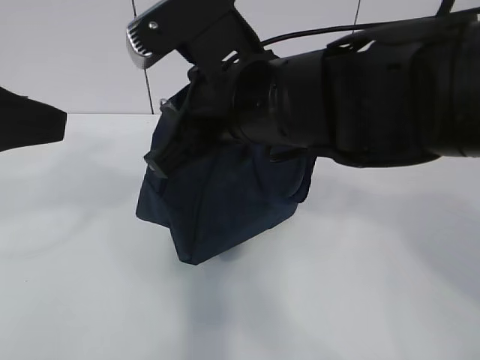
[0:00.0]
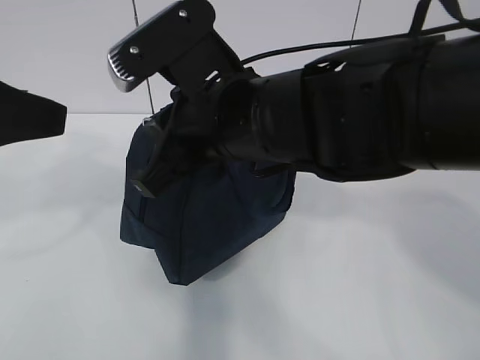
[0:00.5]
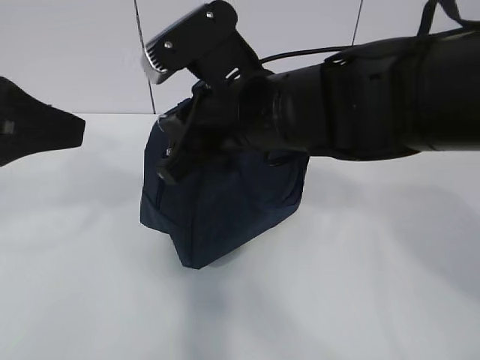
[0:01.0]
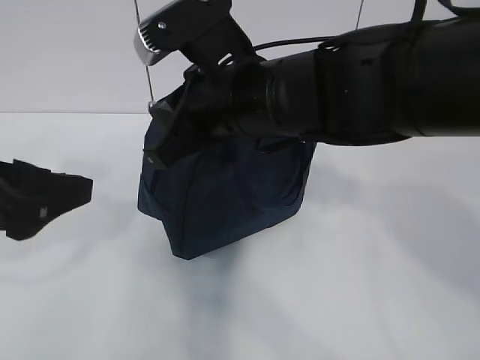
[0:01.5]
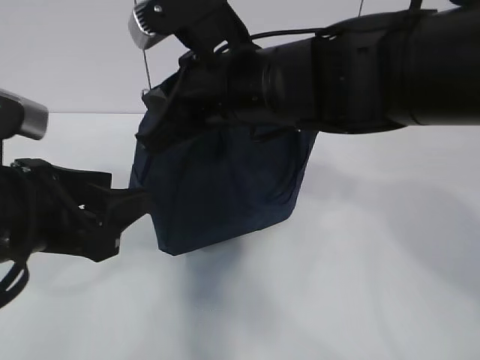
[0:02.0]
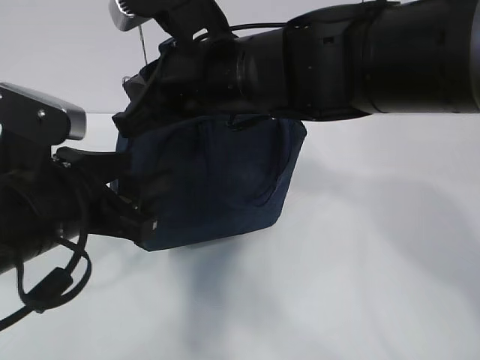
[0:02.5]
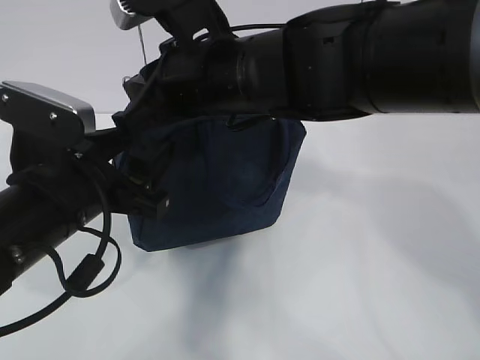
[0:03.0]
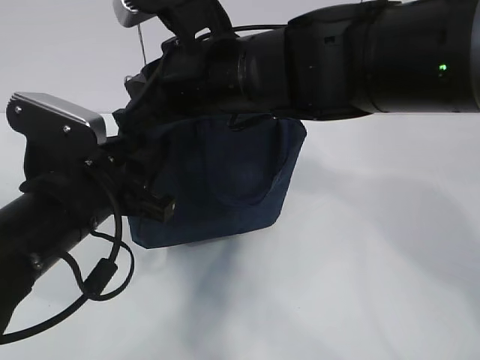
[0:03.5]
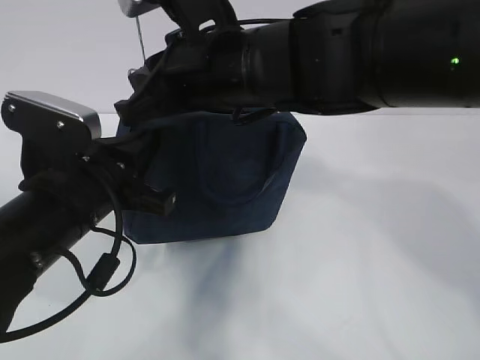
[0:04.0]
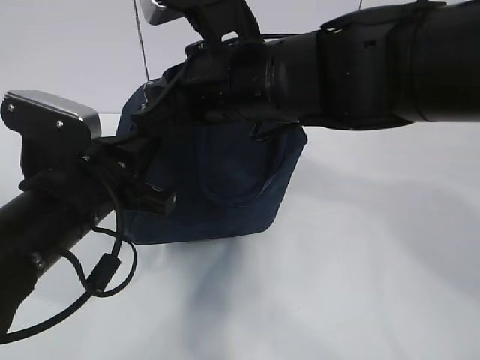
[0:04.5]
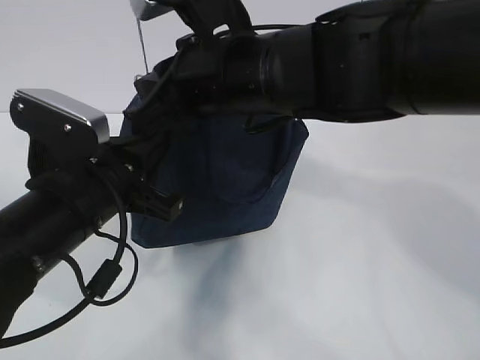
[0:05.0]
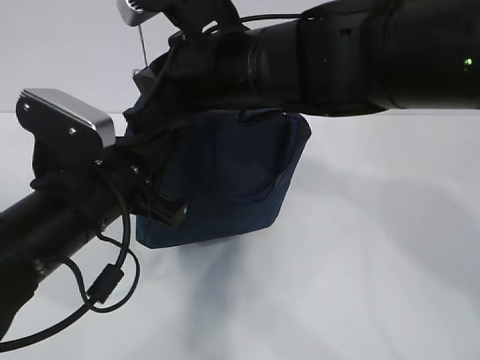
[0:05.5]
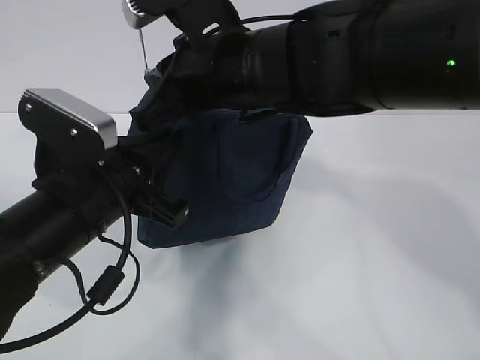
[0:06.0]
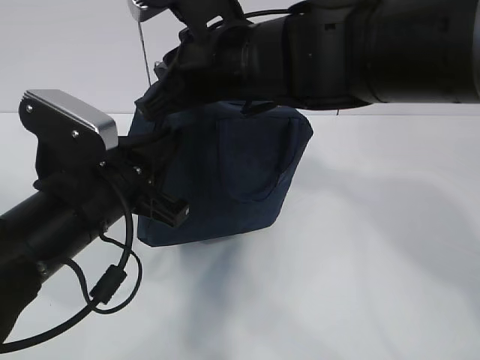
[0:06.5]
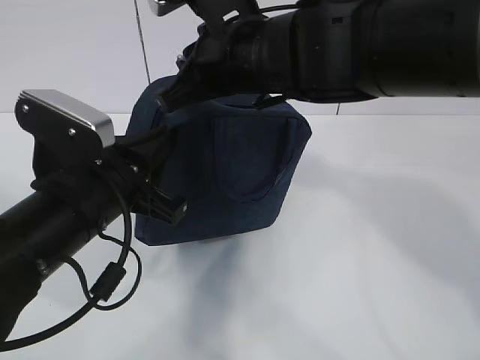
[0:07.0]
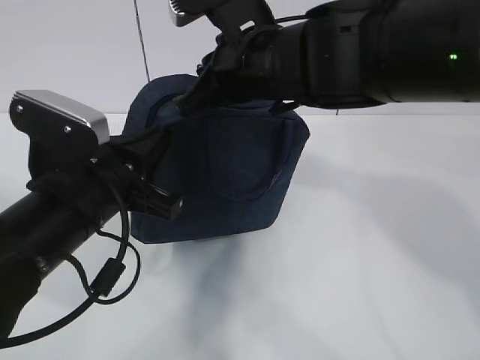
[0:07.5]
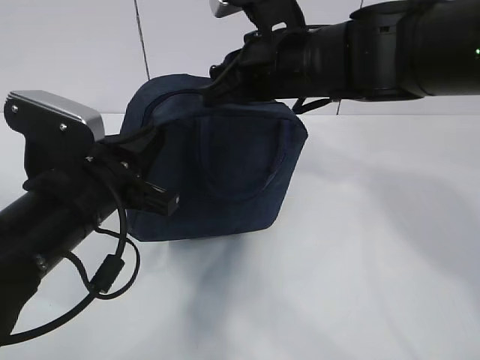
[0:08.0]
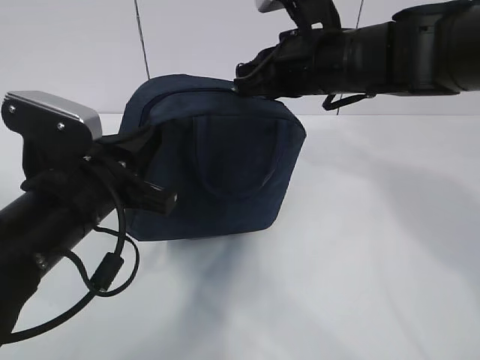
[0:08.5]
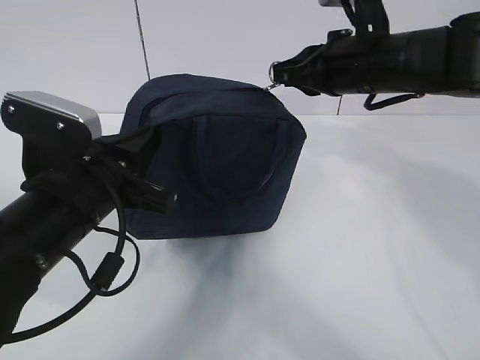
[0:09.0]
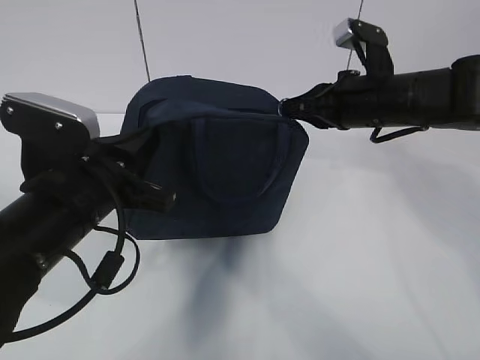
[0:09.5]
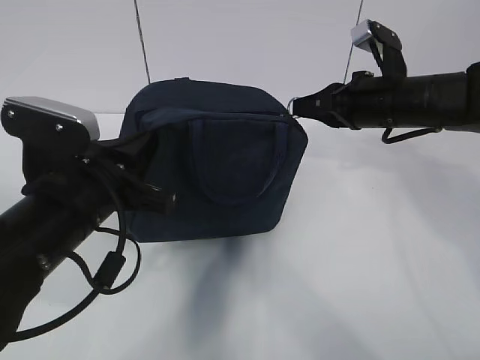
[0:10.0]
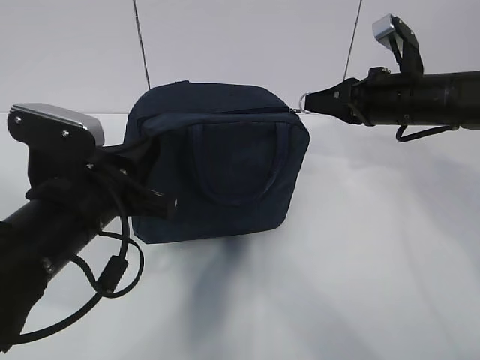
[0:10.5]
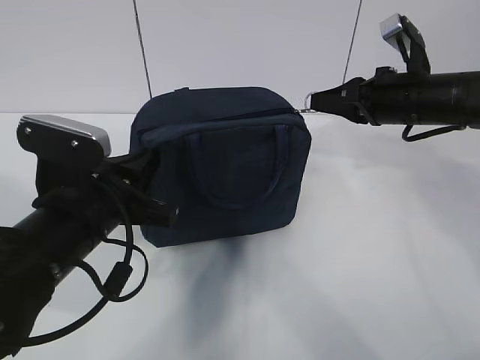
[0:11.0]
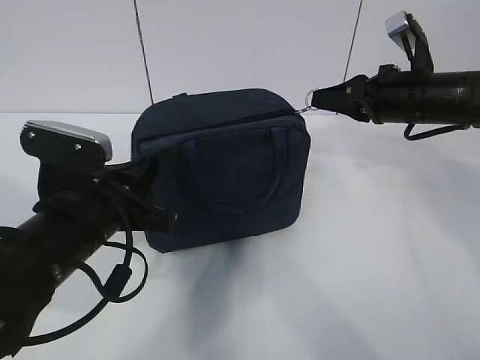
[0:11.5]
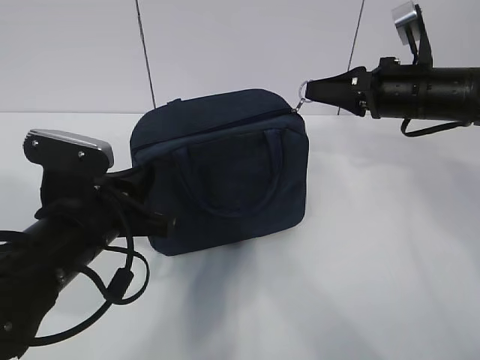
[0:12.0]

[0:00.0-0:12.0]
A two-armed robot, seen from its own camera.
Step, 0:02.5 to 0:09.5: Pull the zipper with your right hand.
0:00.0 to 0:02.0: The left gripper heads downward, covering about 10 cm.
0:02.0 to 0:04.0: The left gripper changes place by approximately 5 cm, and closes its fingers.
0:04.0 to 0:06.0: The grippers stay close to where they were, moving slightly.
0:06.0 to 0:08.0: The right gripper goes roughly 5 cm to the right.
0:08.0 to 0:10.0: The right gripper shifts approximately 15 cm to the right and downward.
0:10.0 to 0:12.0: There are only small adjustments of the grippers.

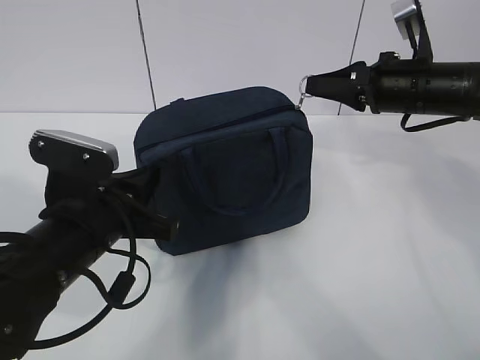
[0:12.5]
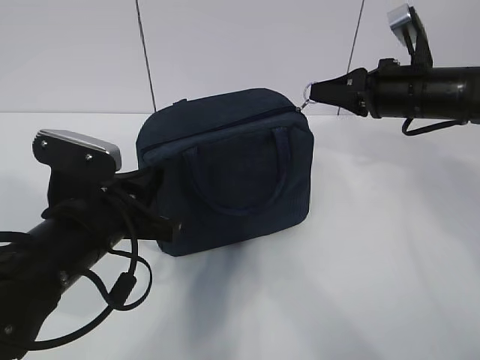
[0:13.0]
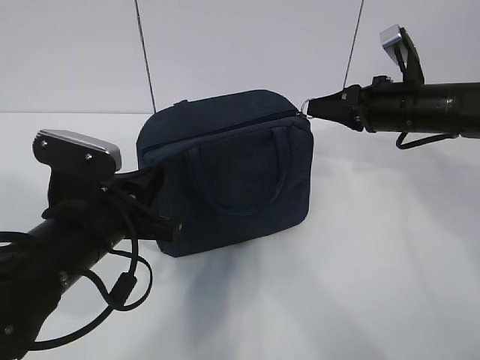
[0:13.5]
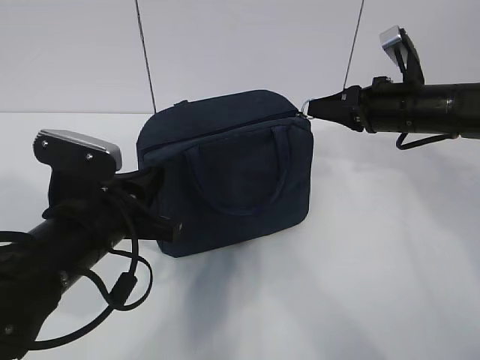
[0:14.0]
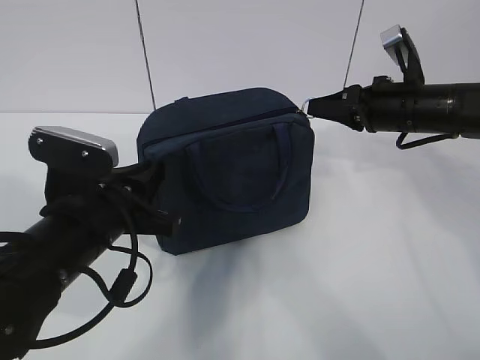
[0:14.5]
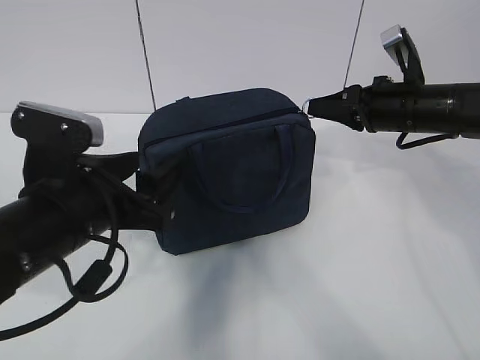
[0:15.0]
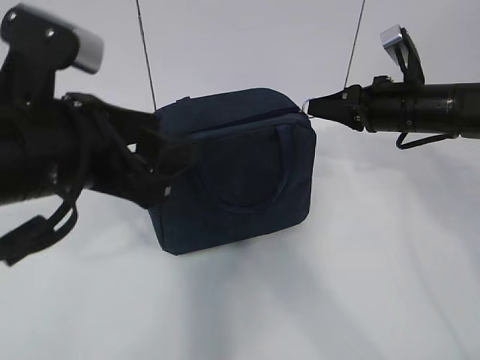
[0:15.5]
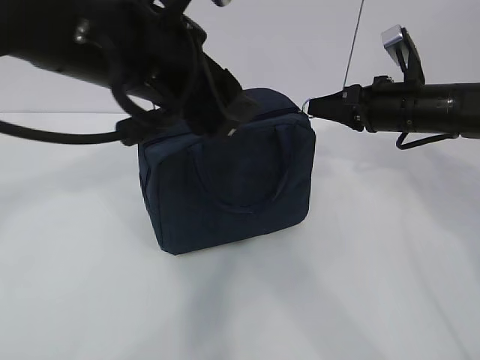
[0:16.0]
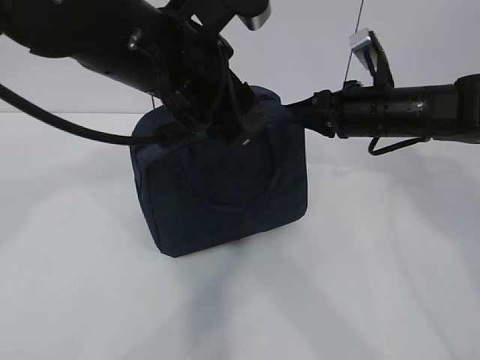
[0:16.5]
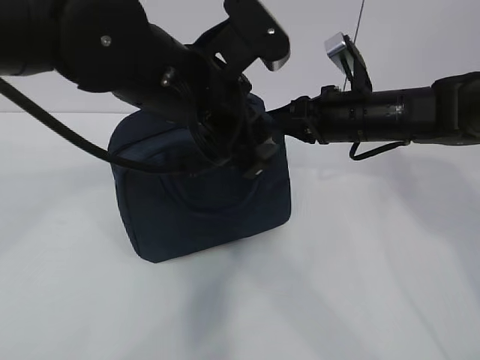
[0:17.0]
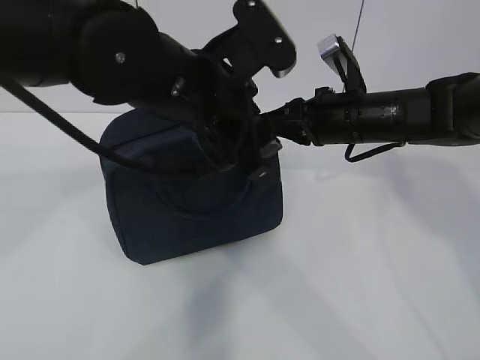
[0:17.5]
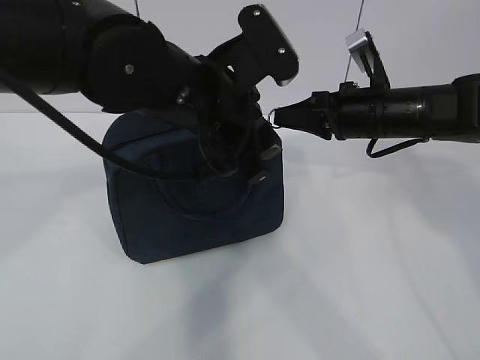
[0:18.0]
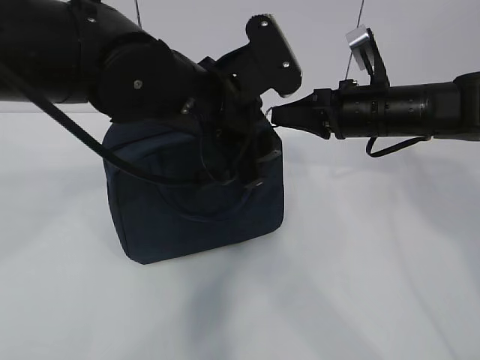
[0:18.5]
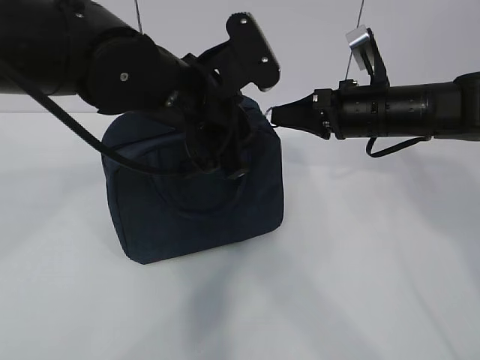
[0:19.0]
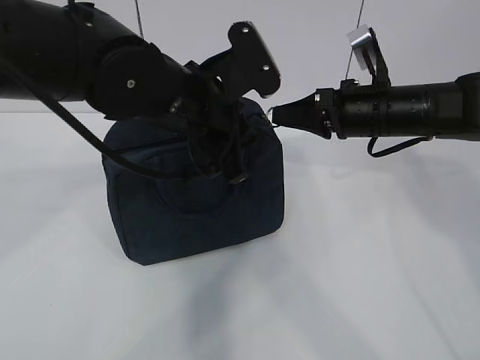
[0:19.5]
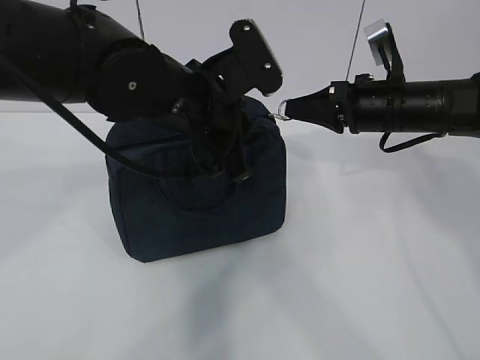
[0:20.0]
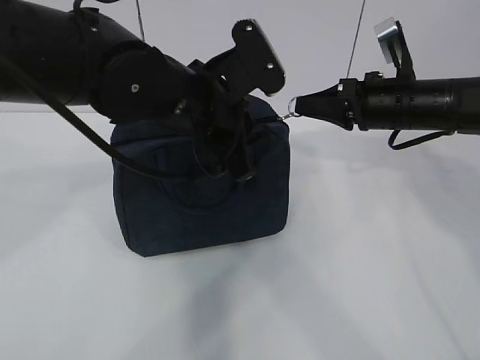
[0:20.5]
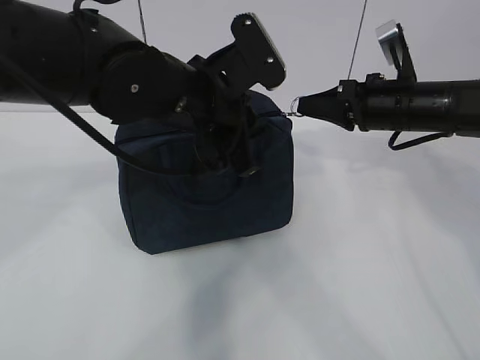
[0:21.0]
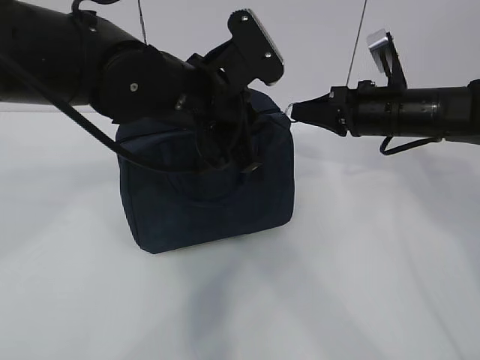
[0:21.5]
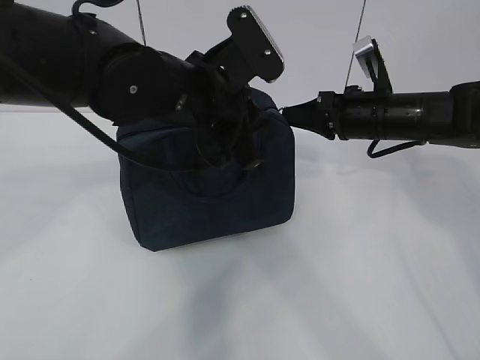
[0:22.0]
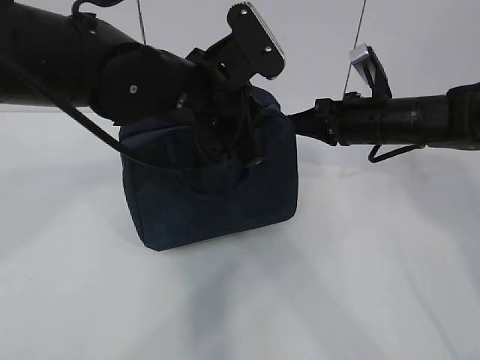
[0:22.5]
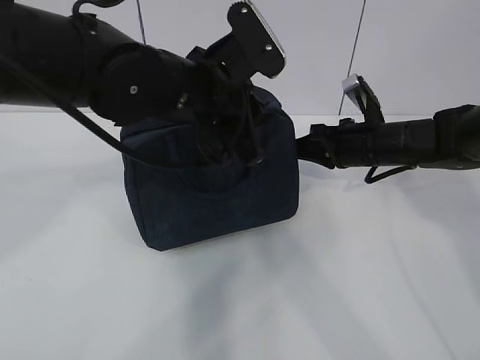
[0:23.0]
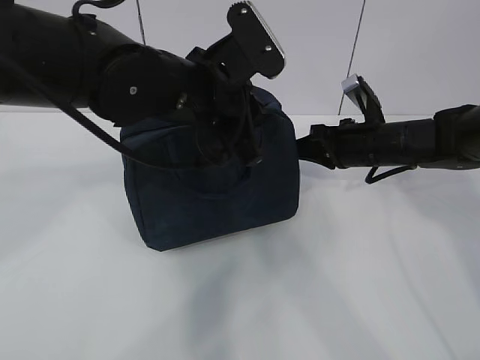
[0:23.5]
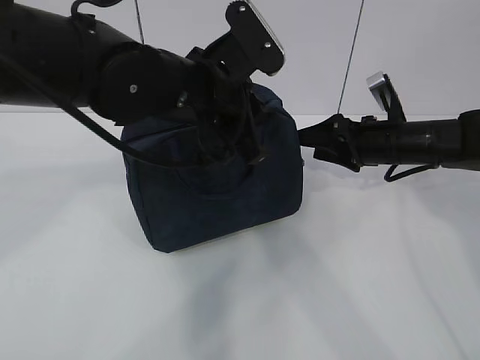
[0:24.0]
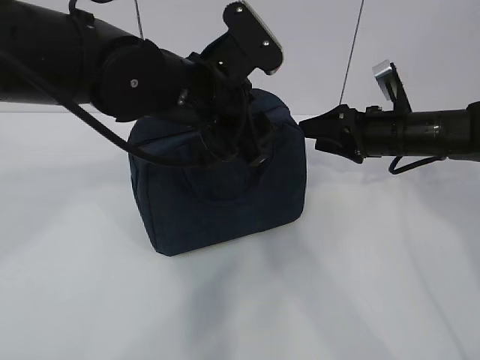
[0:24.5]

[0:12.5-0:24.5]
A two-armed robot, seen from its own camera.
0:12.5 to 0:14.5: The grippers stay close to where they were, moving slightly.
0:14.5 to 0:16.5: The left gripper travels upward and to the right by some 20 cm, and opens up.
0:16.5 to 0:18.5: The left gripper shifts approximately 5 cm downward.
0:18.5 to 0:20.5: The left gripper closes its fingers.
0:20.5 to 0:22.5: The grippers stay close to where they were, moving slightly.
0:22.5 to 0:24.5: The right gripper opens up. Meanwhile the left gripper opens.

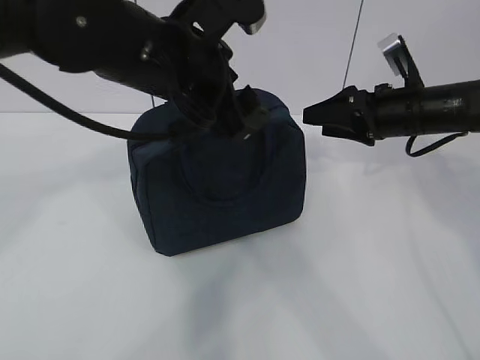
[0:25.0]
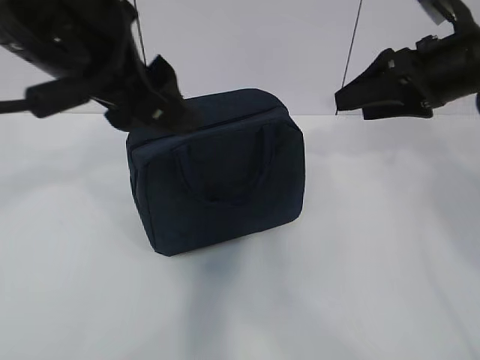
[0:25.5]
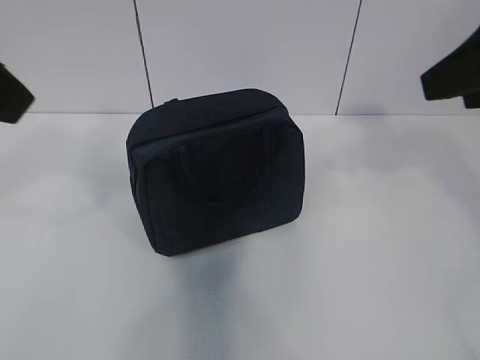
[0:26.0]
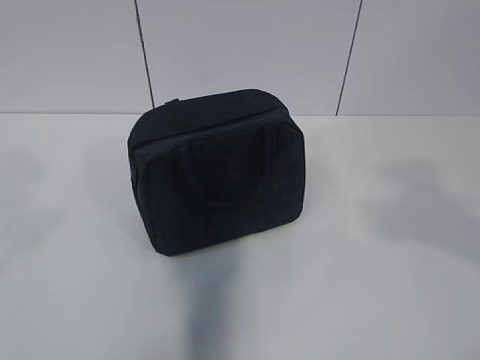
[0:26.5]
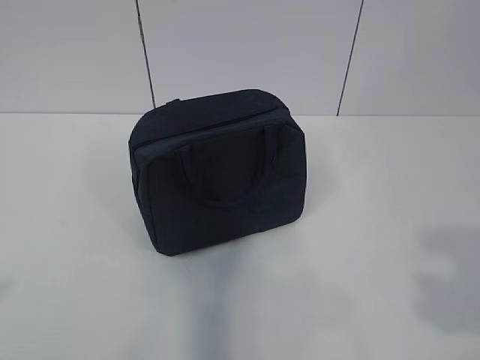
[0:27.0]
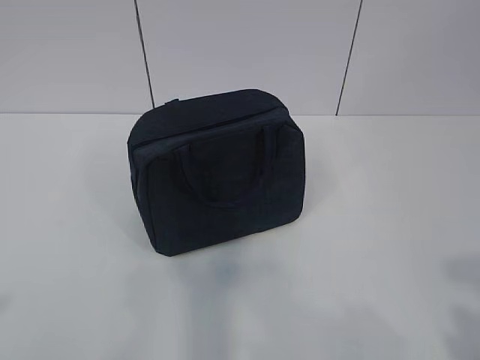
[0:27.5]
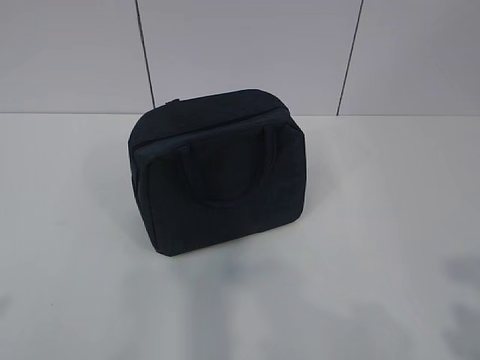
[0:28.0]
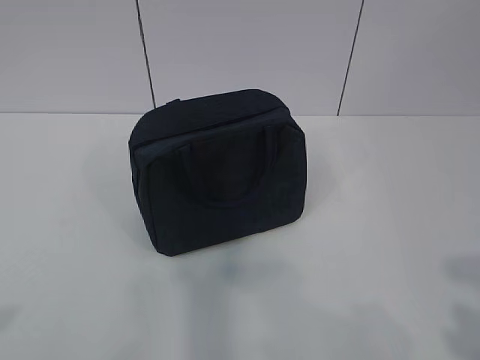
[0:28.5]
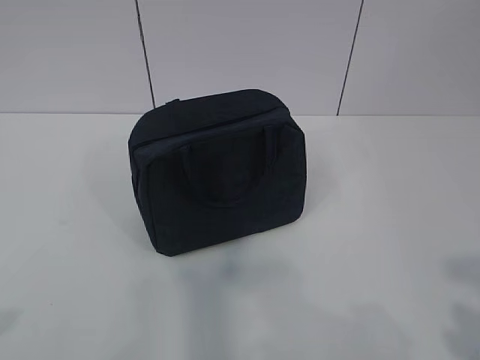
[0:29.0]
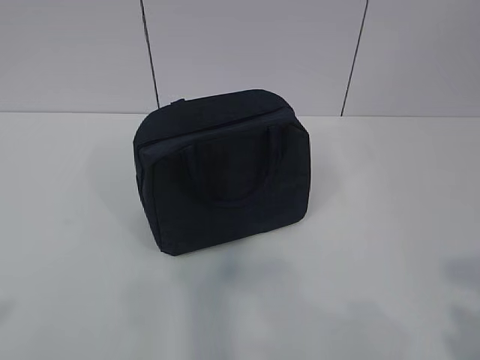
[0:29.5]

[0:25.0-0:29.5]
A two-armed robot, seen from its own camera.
0:25.0 to 0:27.0: The right gripper goes roughly 40 cm backward. The left gripper goes approximately 40 cm backward and to the left.
0:27.0 to 0:29.5: There are only small adjustments of the grippers.
